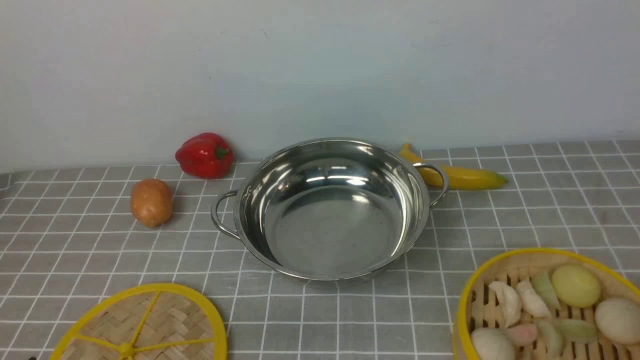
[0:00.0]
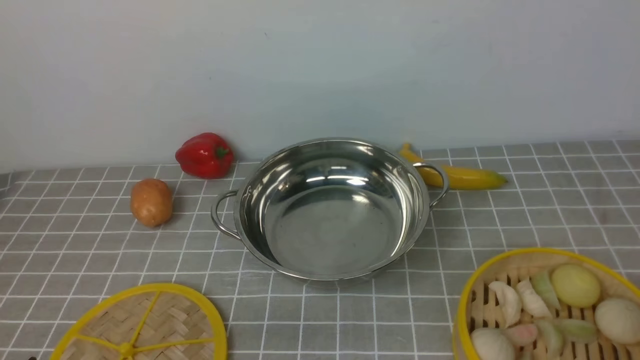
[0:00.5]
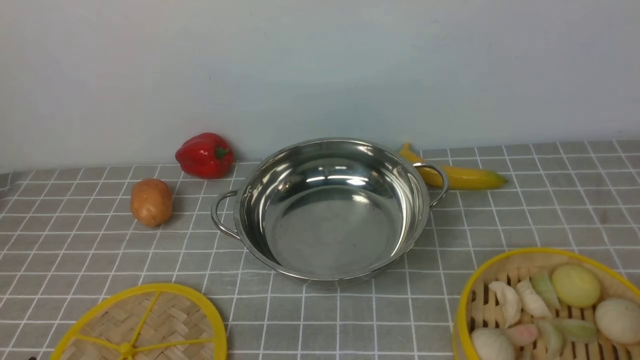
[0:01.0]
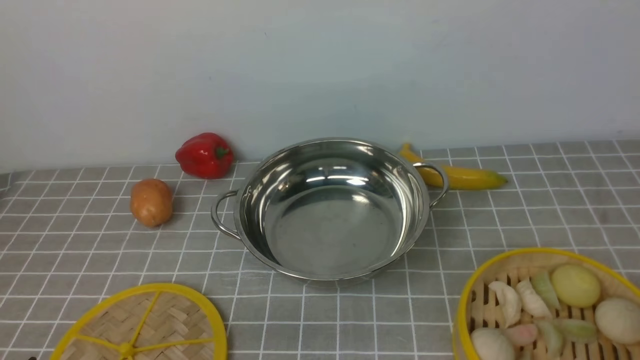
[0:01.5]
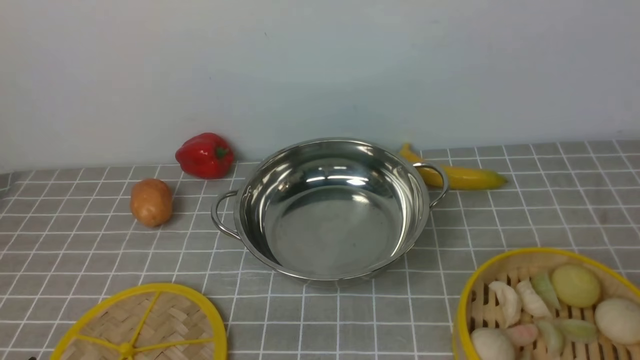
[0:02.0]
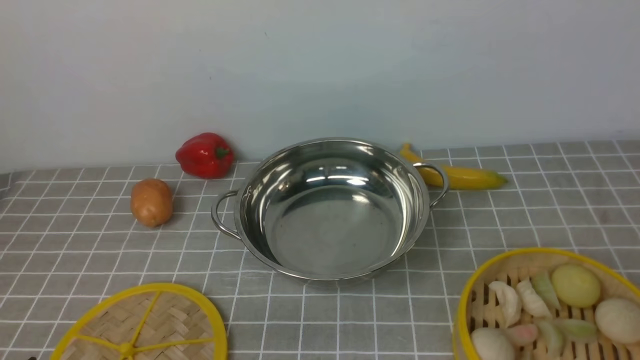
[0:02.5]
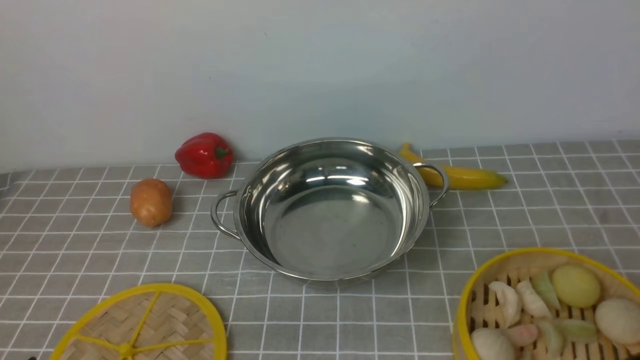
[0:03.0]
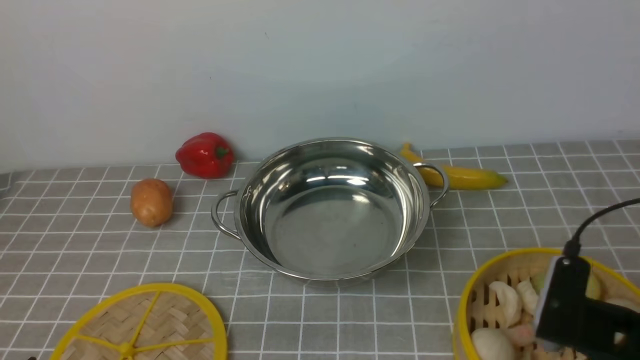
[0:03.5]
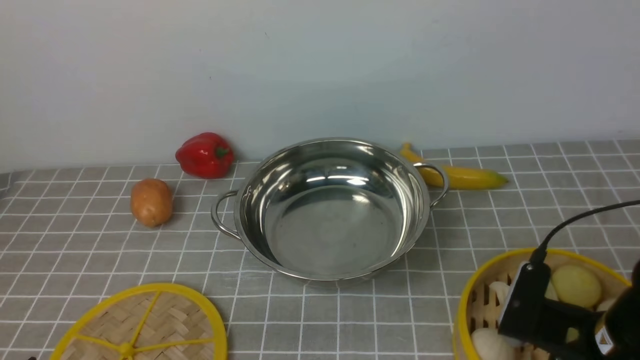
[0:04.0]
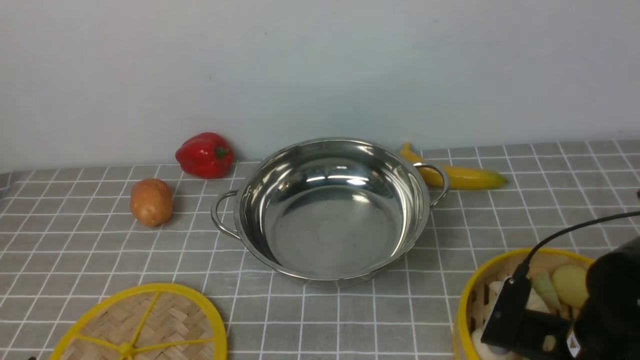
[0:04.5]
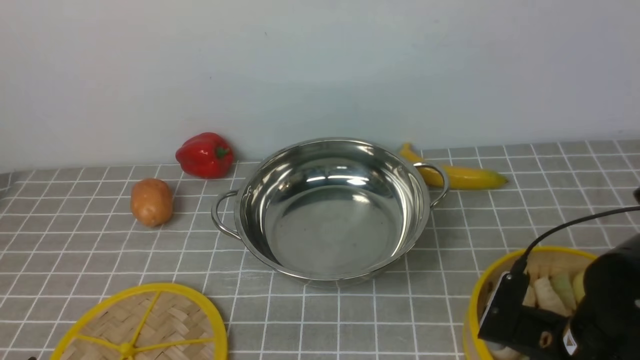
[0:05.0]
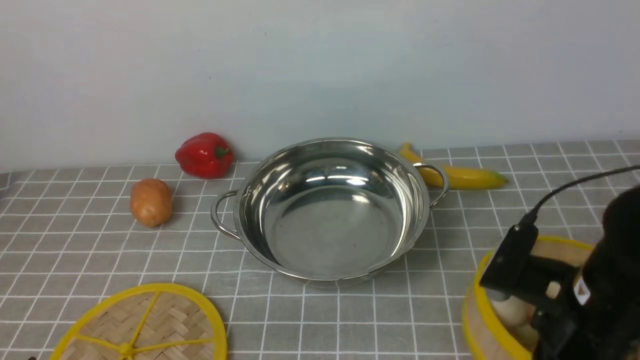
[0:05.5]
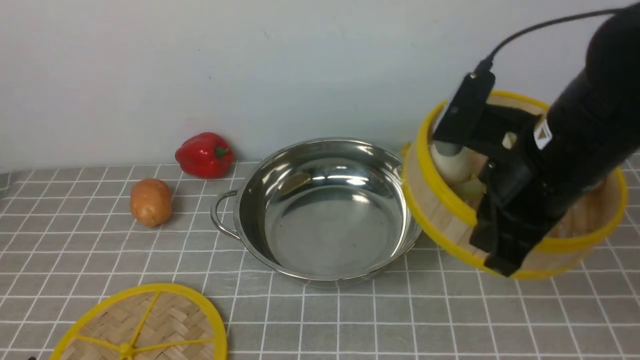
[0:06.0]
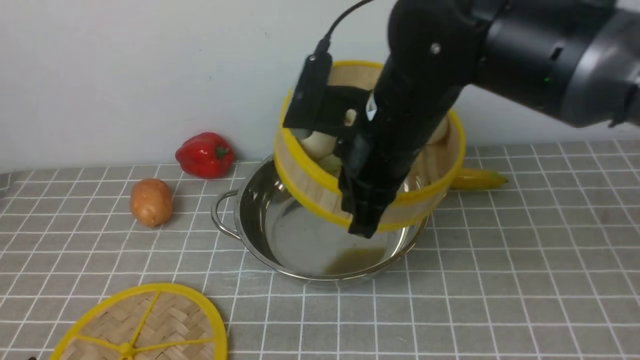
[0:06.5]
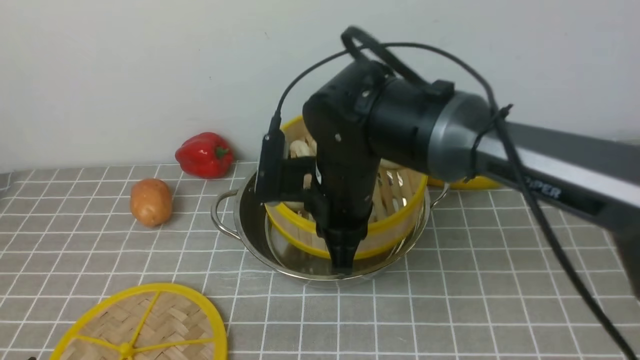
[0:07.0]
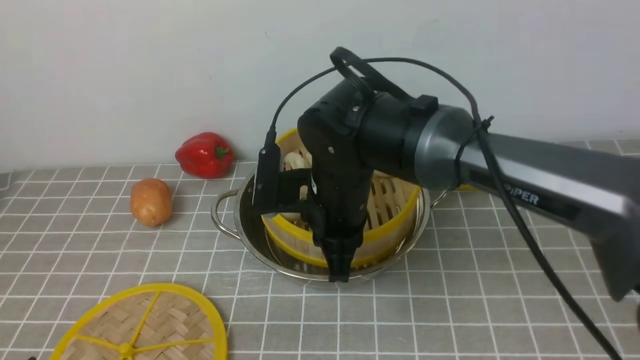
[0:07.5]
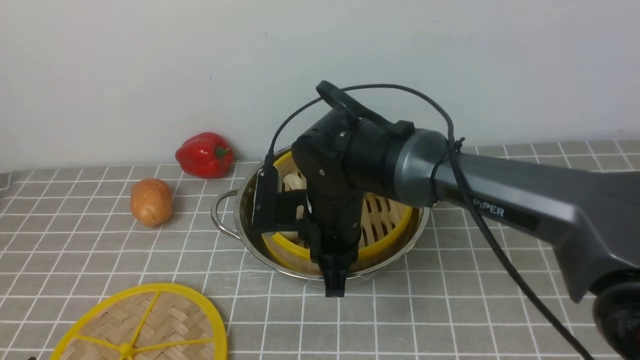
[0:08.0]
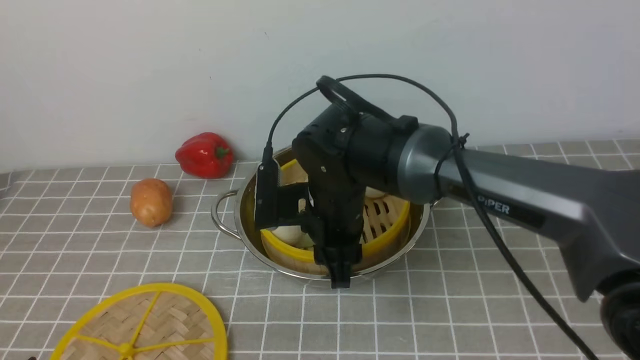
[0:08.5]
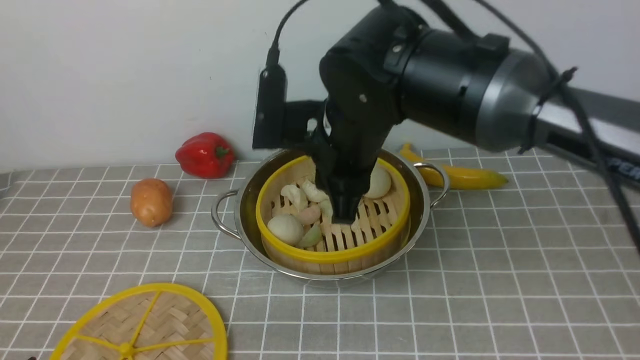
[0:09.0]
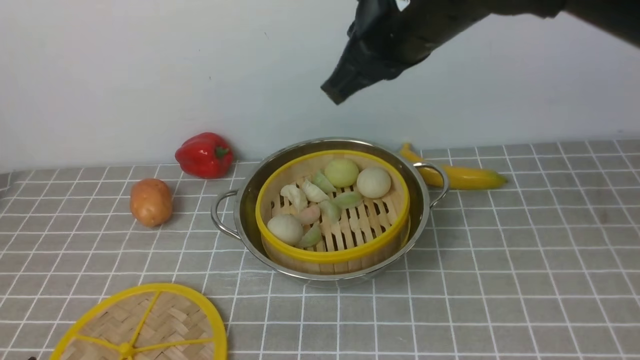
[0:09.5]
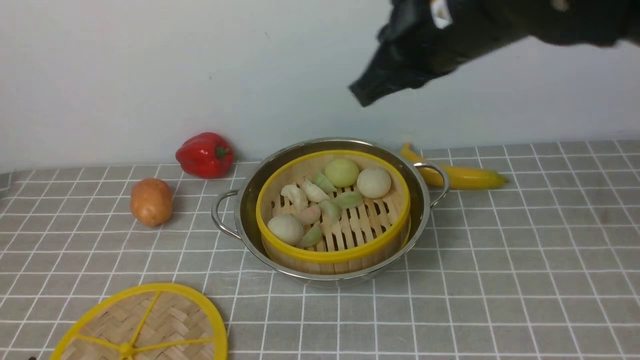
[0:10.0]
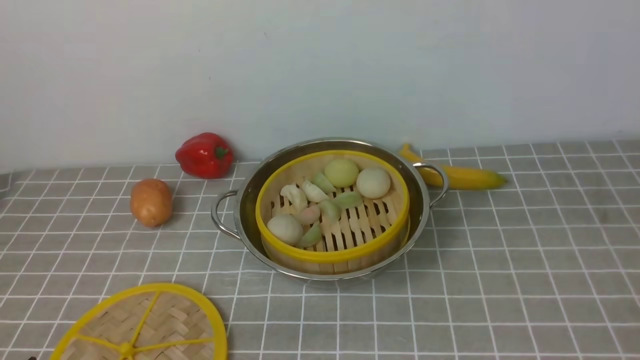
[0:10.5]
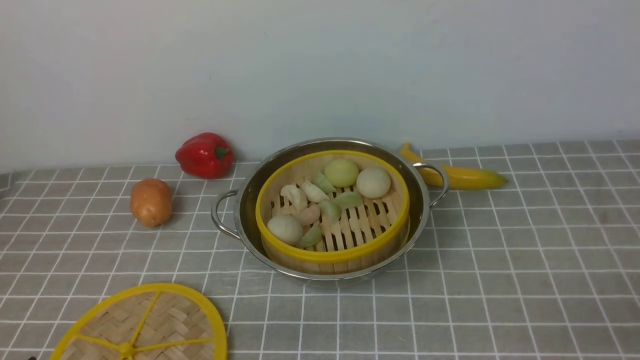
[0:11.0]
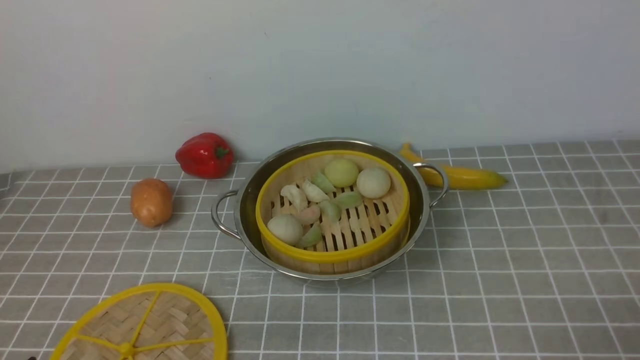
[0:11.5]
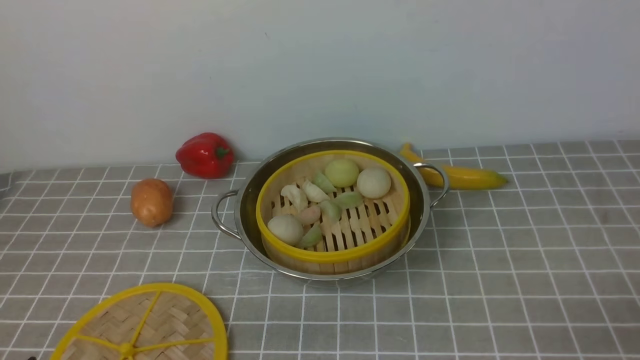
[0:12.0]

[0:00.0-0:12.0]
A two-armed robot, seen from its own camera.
Task of the whole recording: place the steamer in the pot on the grey tablecloth, and put the lid on the steamer.
Step, 0:00.0 to 0:05.0: use the right arm to lift the steamer closest to it.
Step, 0:06.0 to 0:08.5: use the right arm to put the steamer into the iron steamer pot in the middle.
0:02.0 to 0:04.0: The right gripper moves forward, to the left and downward, approximately 20 cm.
0:04.0 to 0:06.0: The right gripper is displaced upward, forward and to the left by some 15 cm, and closes up.
0:06.0 to 0:08.0: The right gripper travels to the left, downward and forward by about 20 cm.
0:08.0 to 0:10.0: The right gripper shifts about 25 cm upward and to the right, and opens, then closes again.
0:10.0 to 0:12.0: The right gripper moves backward, downward and to the right, roughly 35 cm, and opens its fingers.

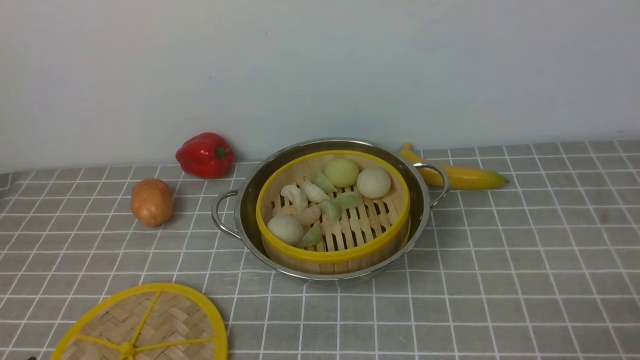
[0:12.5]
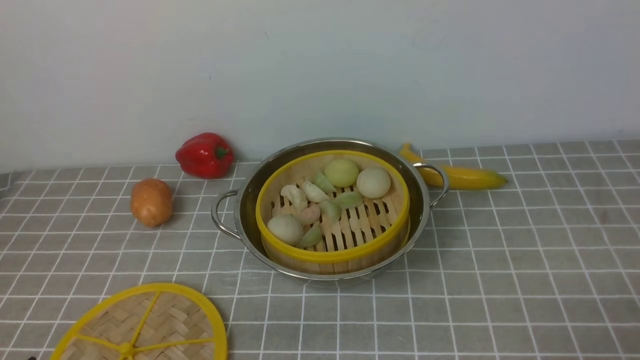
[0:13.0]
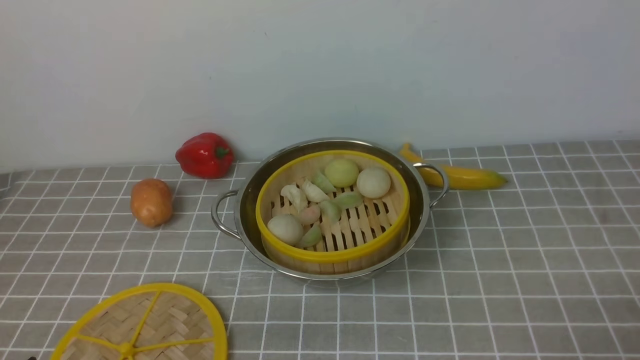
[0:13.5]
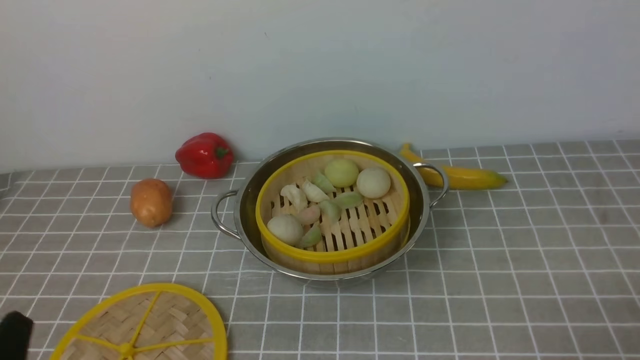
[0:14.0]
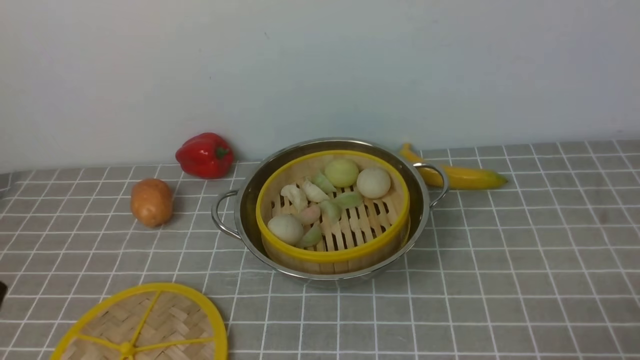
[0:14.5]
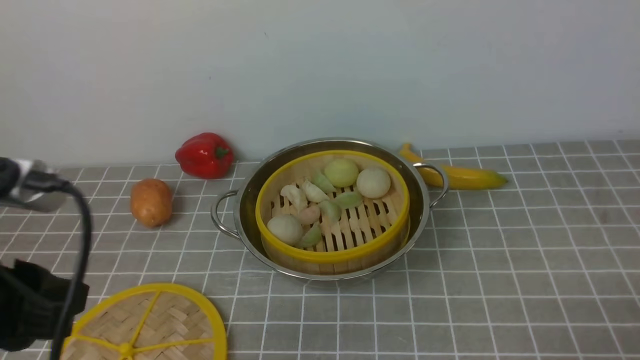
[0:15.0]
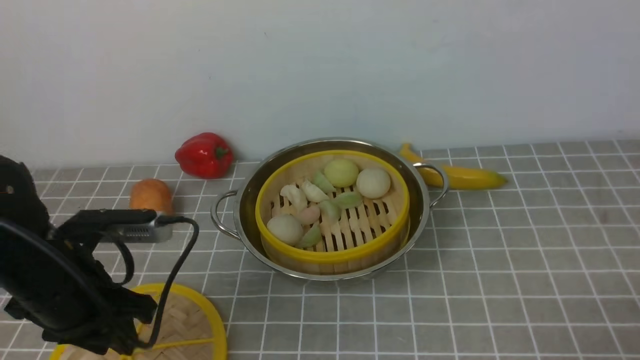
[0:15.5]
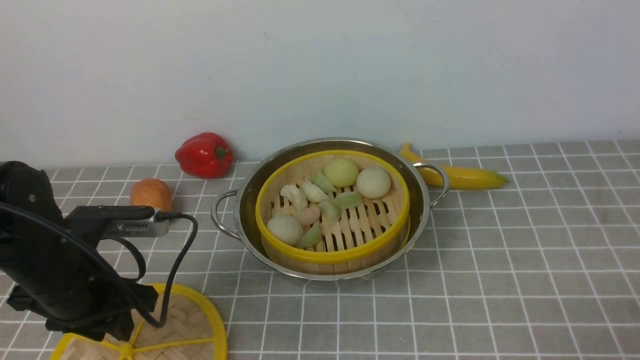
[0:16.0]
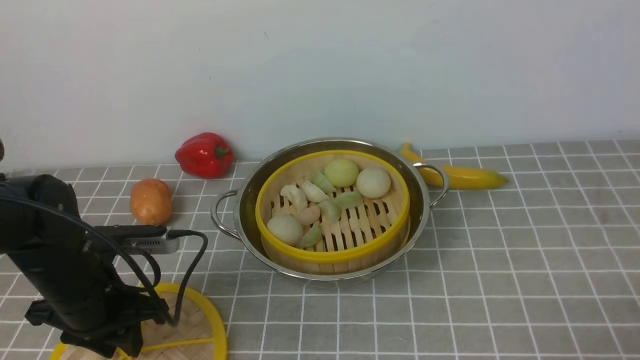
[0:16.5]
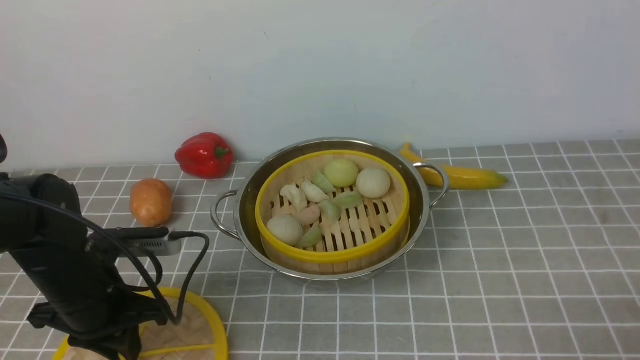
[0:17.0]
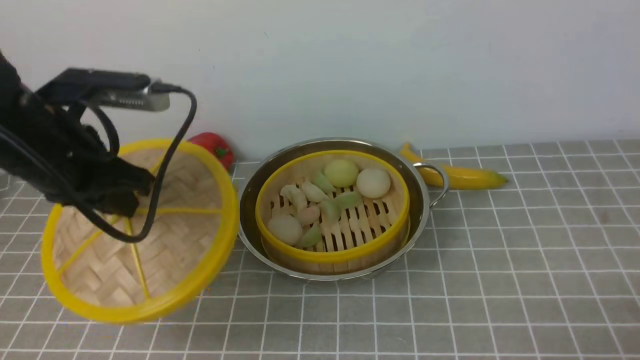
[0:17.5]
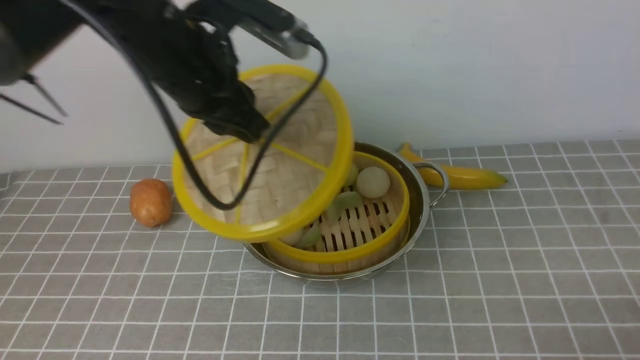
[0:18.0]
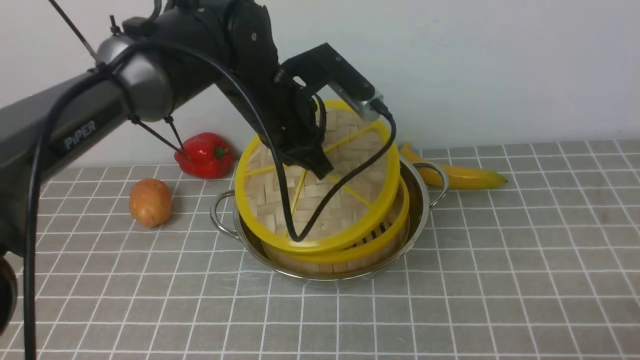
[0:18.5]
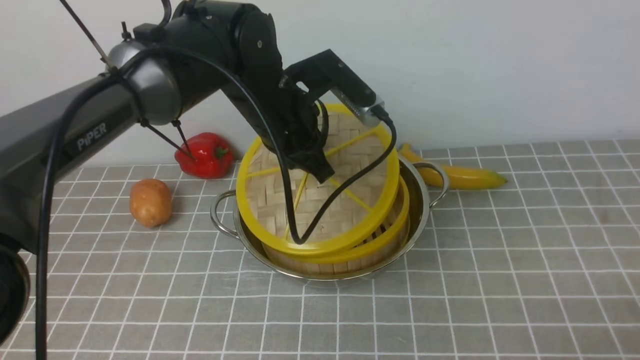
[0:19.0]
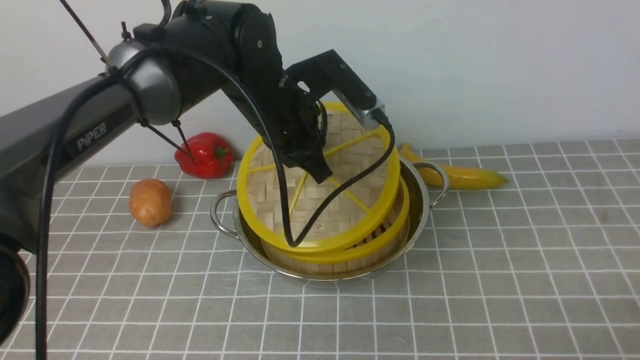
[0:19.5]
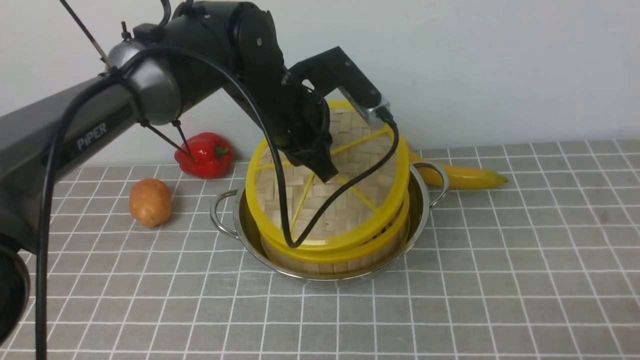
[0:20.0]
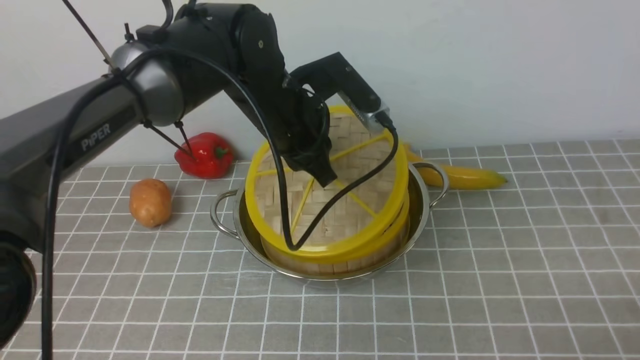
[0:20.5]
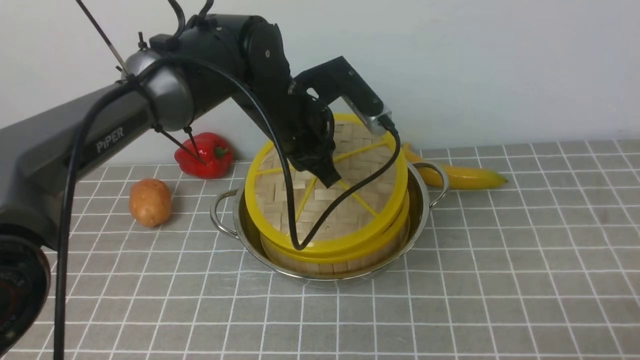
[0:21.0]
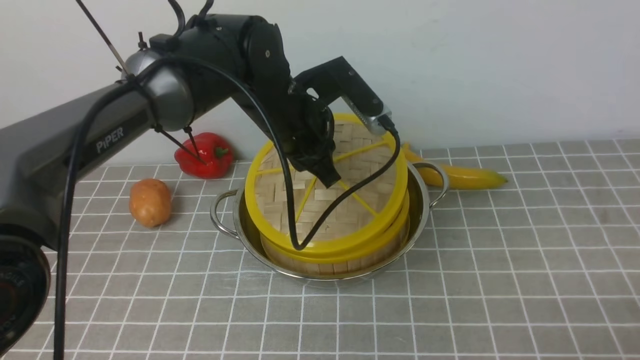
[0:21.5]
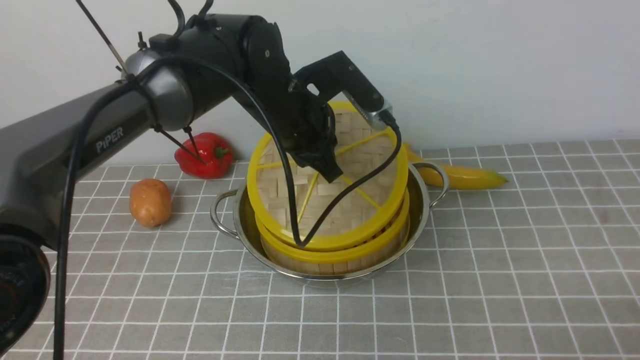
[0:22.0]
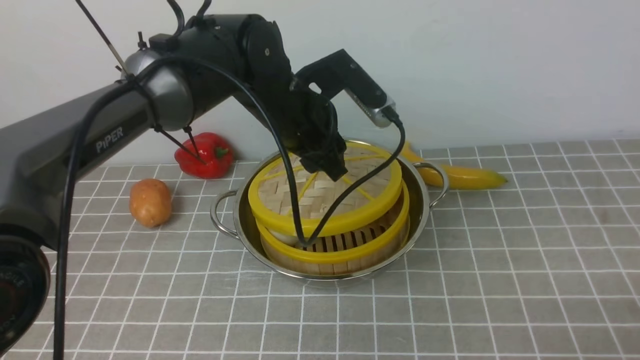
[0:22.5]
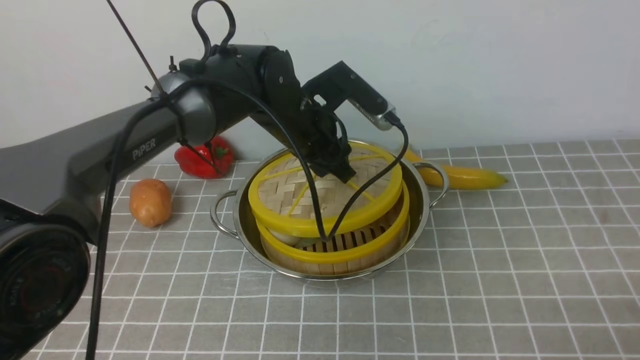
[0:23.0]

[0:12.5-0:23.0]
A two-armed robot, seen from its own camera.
Task of the whole recording: place the steamer in the pot on the grey tablecloth, and put the lid on the steamer.
Step, 0:12.5 to 0:17.0: use the left arm to lift the lid of the steamer.
0:14.5 to 0:16.5: The left gripper travels forward and downward by approximately 25 cm.
0:16.5 to 0:19.0: The left gripper heads to the right, forward and upward, covering roughly 25 cm.
0:19.0 to 0:21.0: The grippers move only a little.
0:21.0 to 0:23.0: The left gripper opens.
